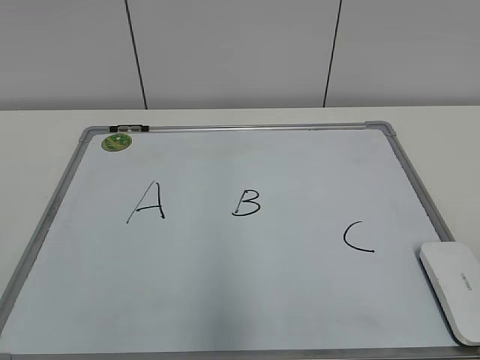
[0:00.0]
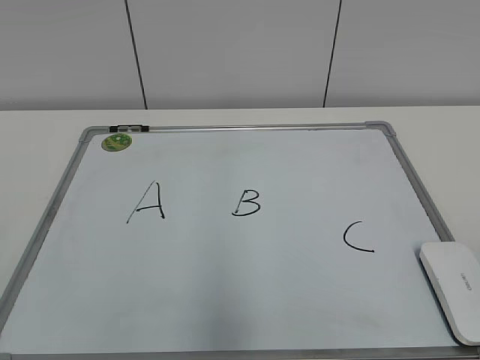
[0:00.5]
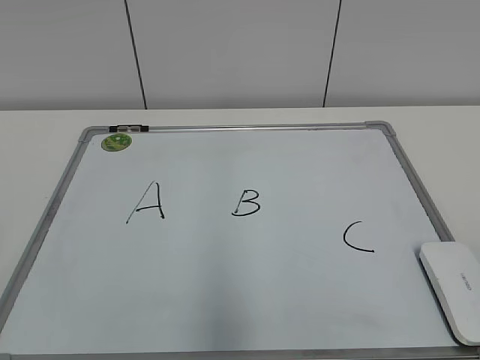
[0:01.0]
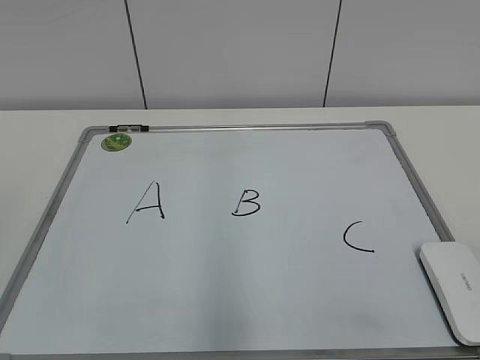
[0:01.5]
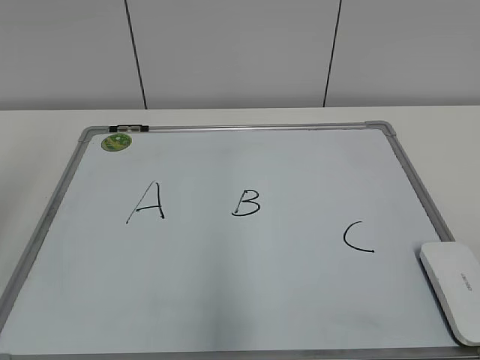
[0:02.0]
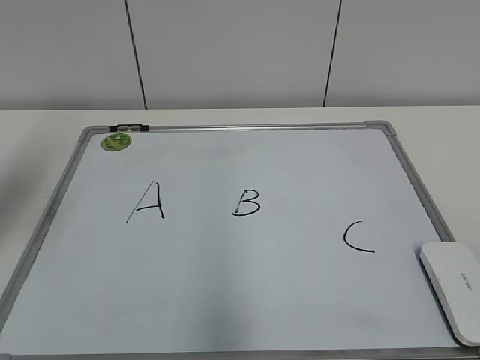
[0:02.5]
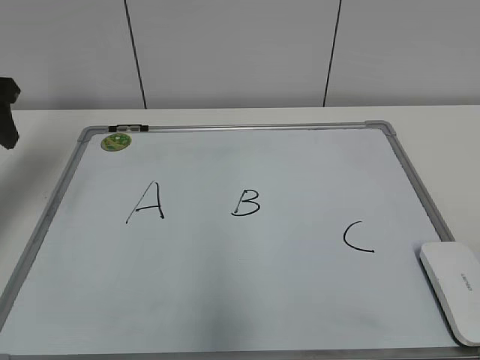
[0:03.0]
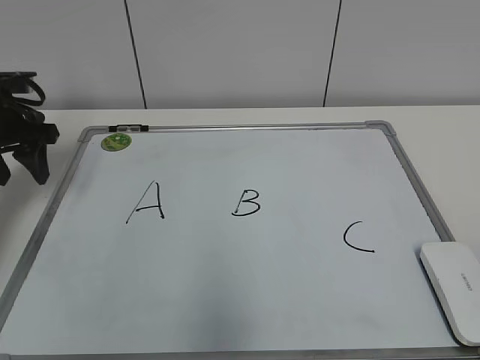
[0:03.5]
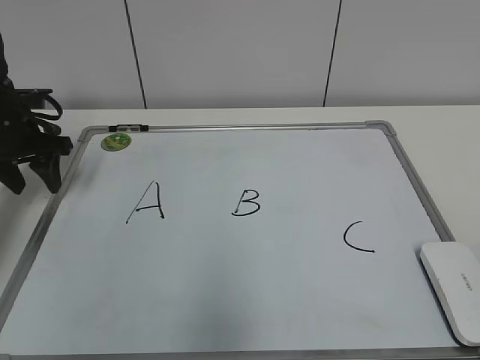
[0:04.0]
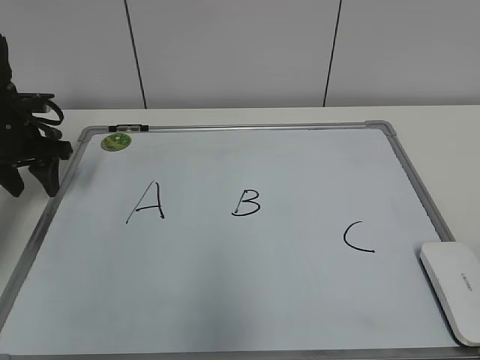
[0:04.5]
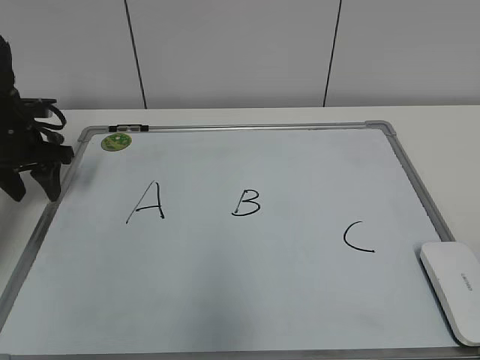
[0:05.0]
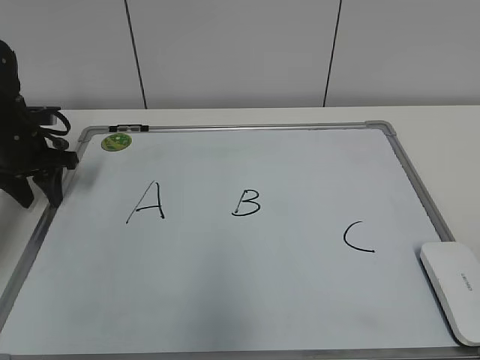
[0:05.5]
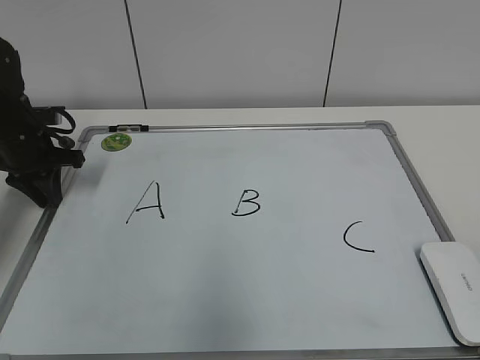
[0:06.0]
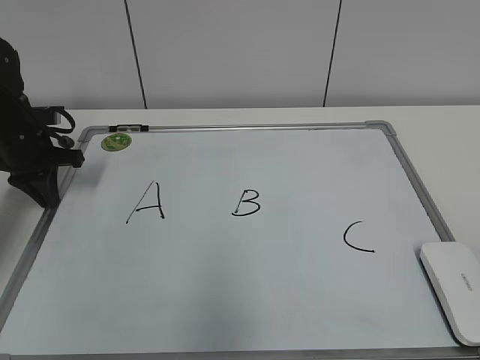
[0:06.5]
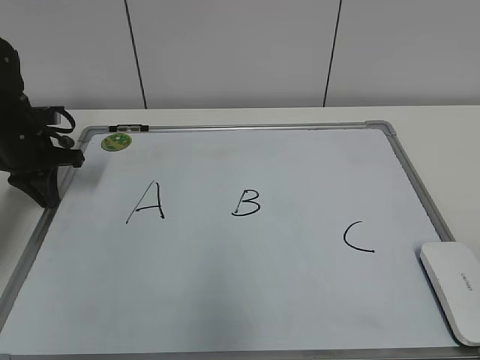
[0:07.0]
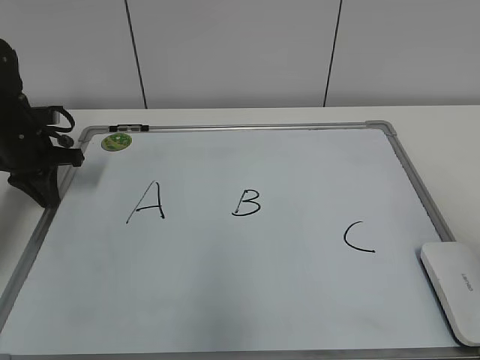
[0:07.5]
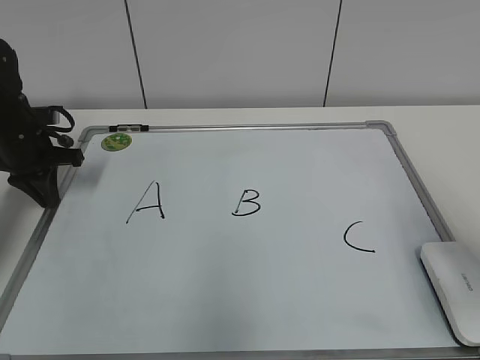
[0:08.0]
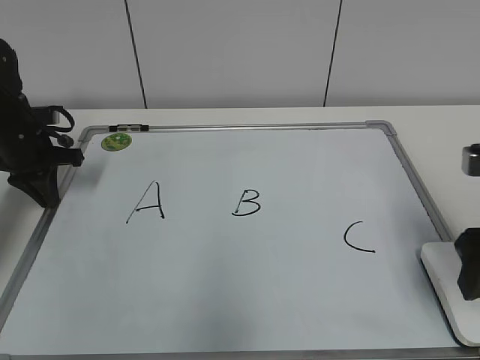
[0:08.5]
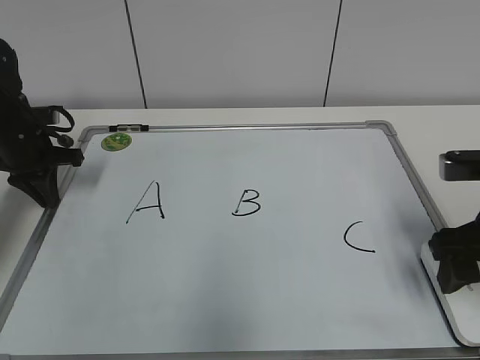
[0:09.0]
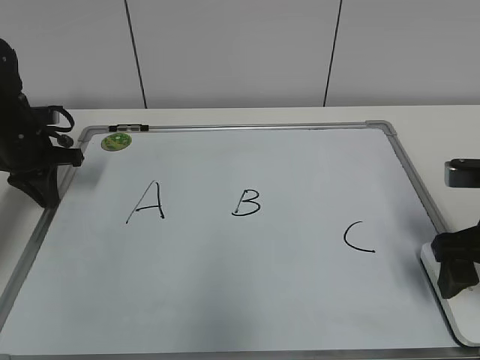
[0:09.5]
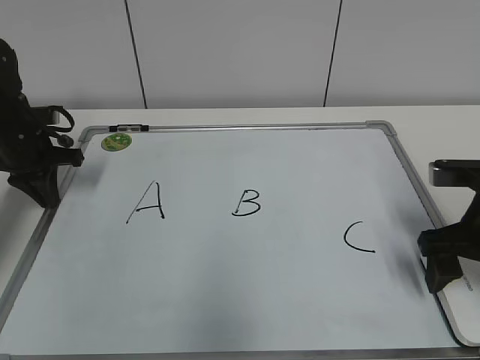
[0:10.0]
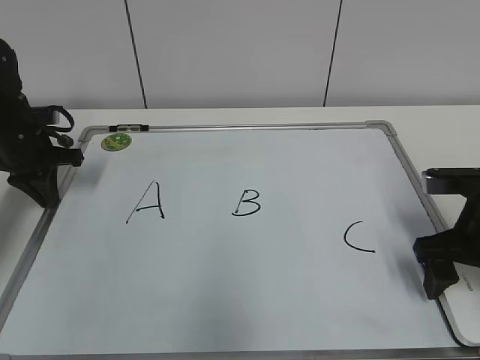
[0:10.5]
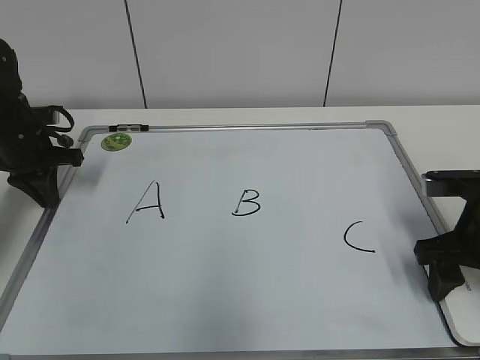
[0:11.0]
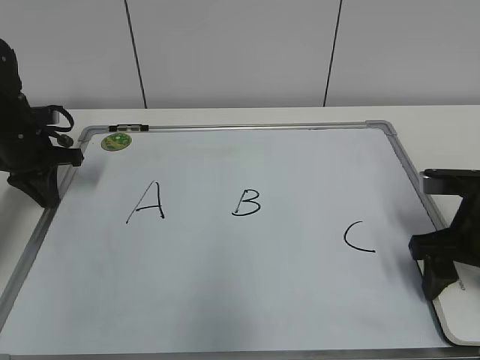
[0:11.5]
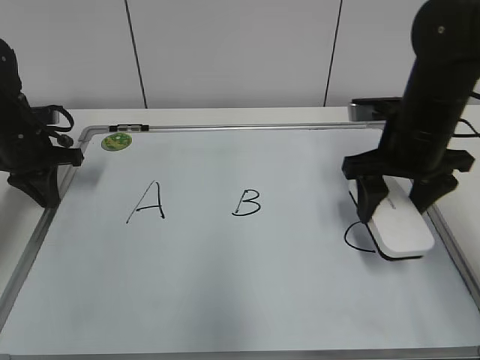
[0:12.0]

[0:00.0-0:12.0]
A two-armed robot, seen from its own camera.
Task of the whole recording: pick up the eraser on the blackboard and erase the letter "B".
Step, 0:00.0 to 0:06.0: Hold the drawing board steady with your left hand.
Step, 0:07.0 to 0:11.0: Grab the eraser with your right hand.
0:02.0 to 0:04.0: The left gripper goes roughly 35 cm forward and downward.
0:04.0 to 0:06.0: The left gripper closes.
0:06.0 to 0:08.0: The right gripper is displaced forward by approximately 20 cm.
0:08.0 to 0:10.0: The right gripper shifts some 15 cm forward and downward, and opens.
0:10.0 to 0:12.0: The right gripper heads forward and to the left, covering roughly 10 cm, and closes up.

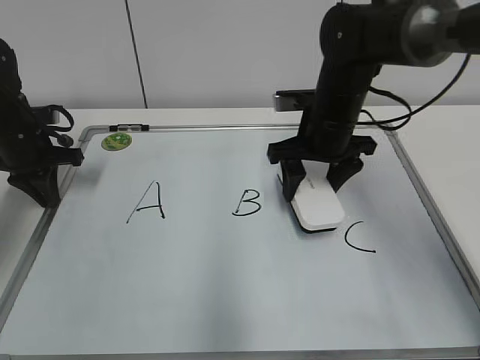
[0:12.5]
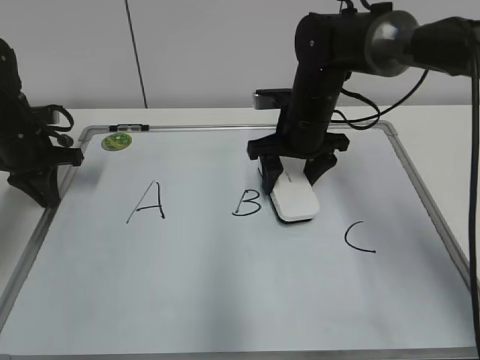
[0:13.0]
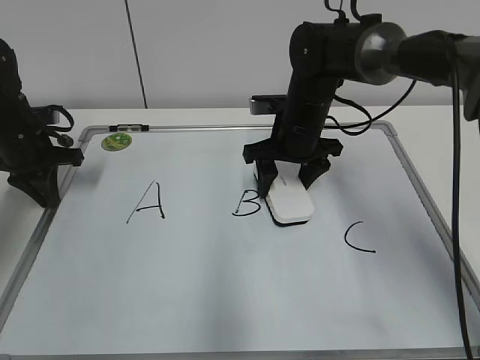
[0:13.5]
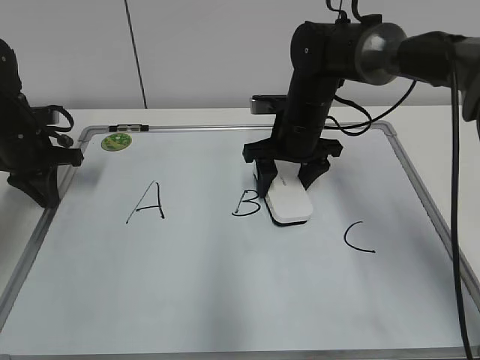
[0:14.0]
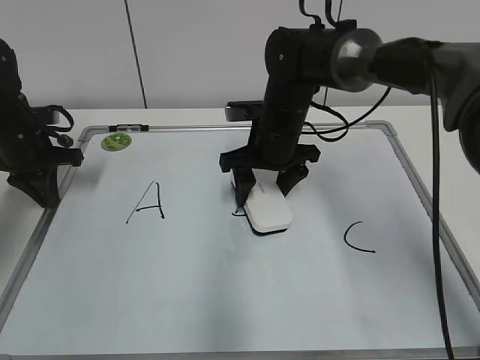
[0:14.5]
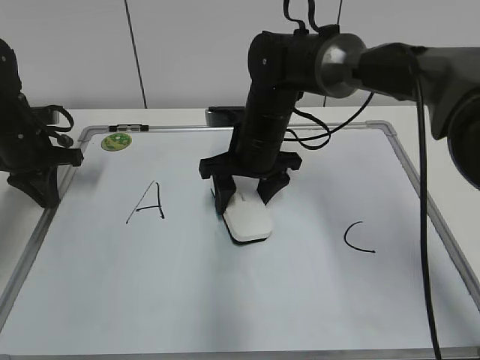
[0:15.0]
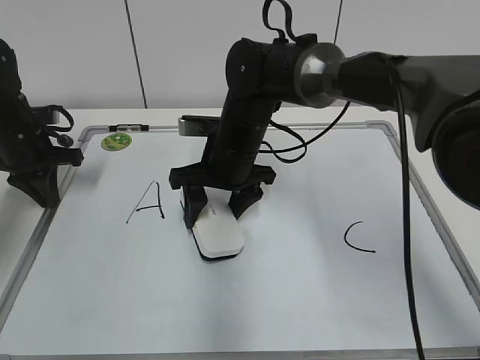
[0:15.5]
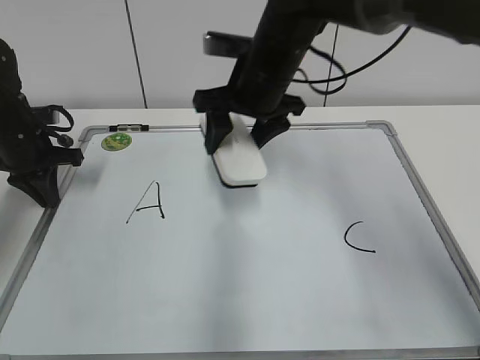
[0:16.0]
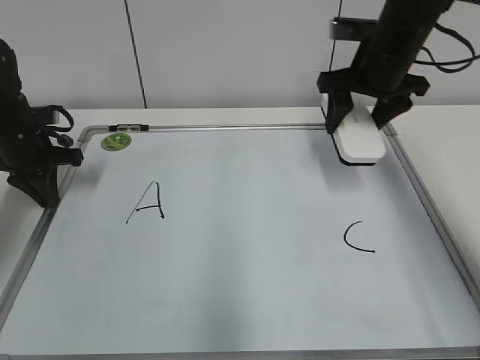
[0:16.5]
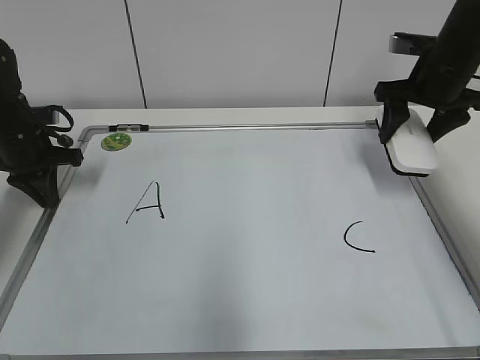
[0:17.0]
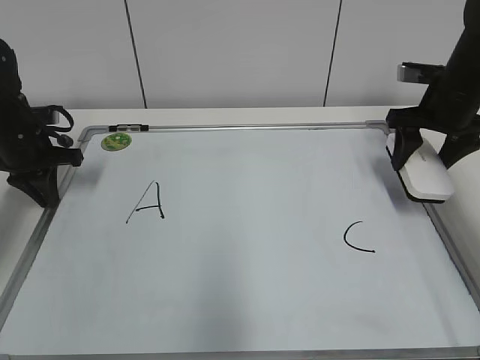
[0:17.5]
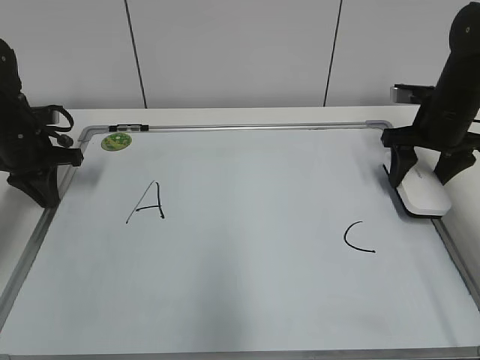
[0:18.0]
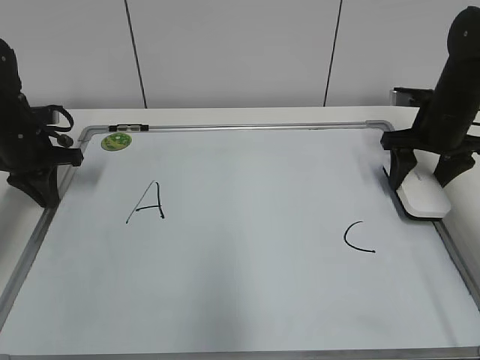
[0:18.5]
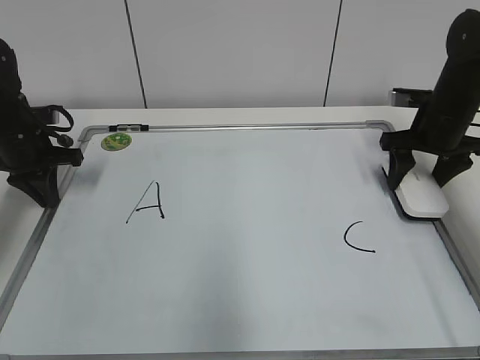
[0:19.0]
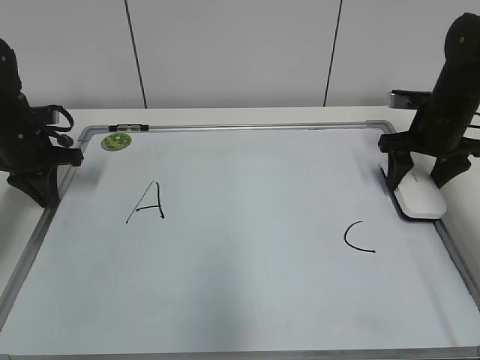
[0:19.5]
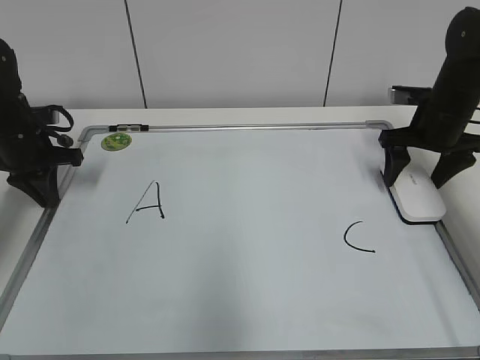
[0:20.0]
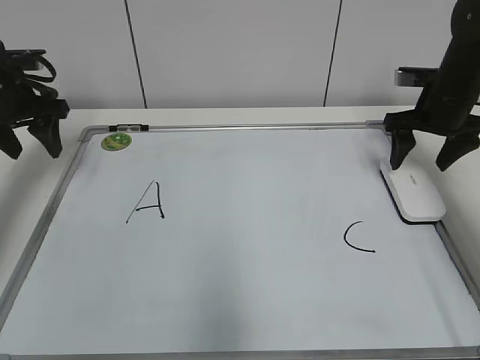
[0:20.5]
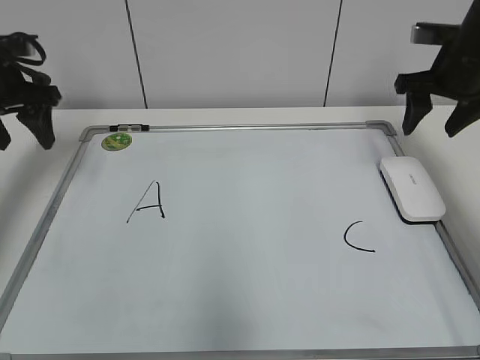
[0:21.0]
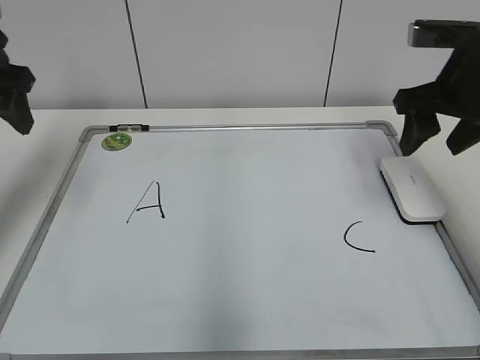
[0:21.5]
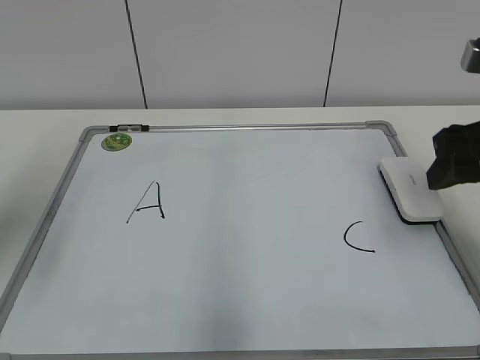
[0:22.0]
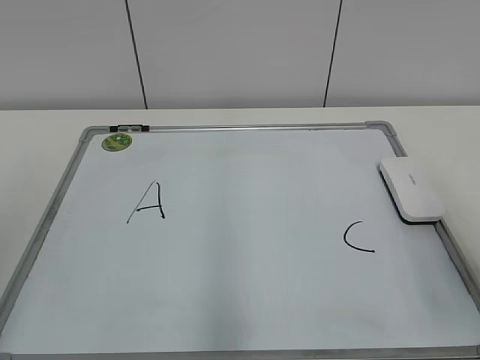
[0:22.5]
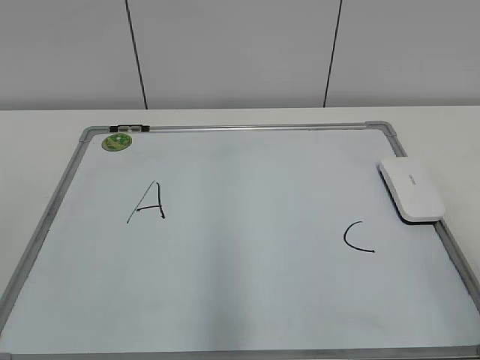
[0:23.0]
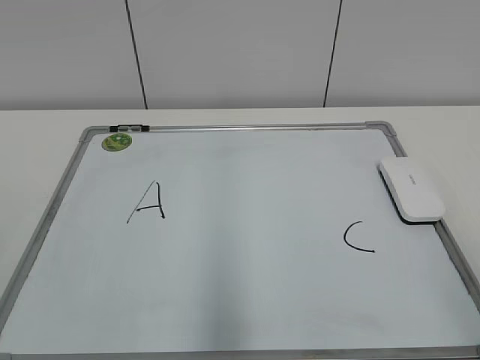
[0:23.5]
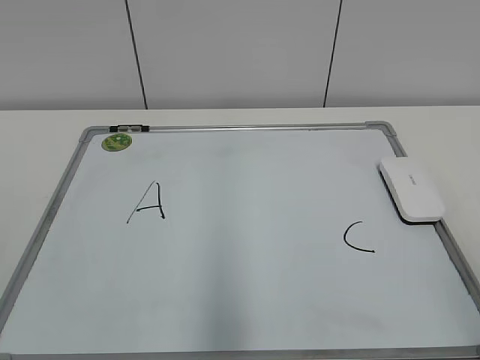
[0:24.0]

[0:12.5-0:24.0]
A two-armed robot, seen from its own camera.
Task of the whole recording: pick up the eraser on the blackboard and erase the letter "B".
Step, 0:12.5 to 0:15.5: Erase the letter B with your right hand.
Step, 0:16.0 to 0:19.5: Put down the eraser with your right hand.
0:12.5 to 0:14.5: The right gripper shifts about 5 cm to the left.
0:14.5 to 0:16.5: The right gripper shifts about 15 cm to the right and upward.
0:16.5 to 0:18.5: The right gripper travels to the right and downward by approximately 15 cm.
0:18.5 to 0:20.0: The right gripper opens up.
0:20.0 to 0:22.0: Both grippers move backward and upward, roughly 25 cm. The right gripper closes up, while the left gripper opens its fingers.
0:22.0 to 0:24.0: The two grippers go roughly 20 cm backward.

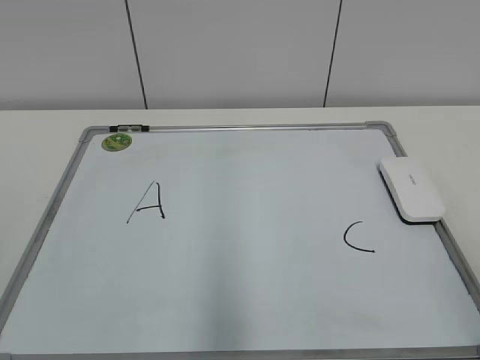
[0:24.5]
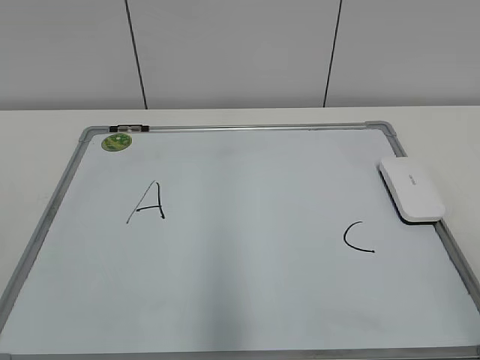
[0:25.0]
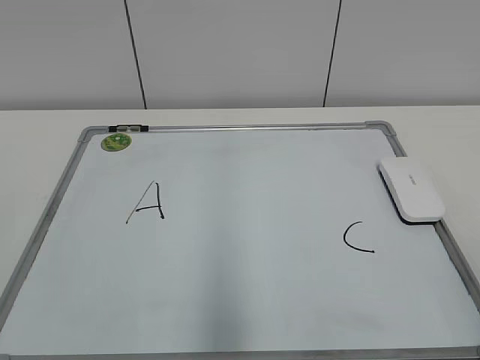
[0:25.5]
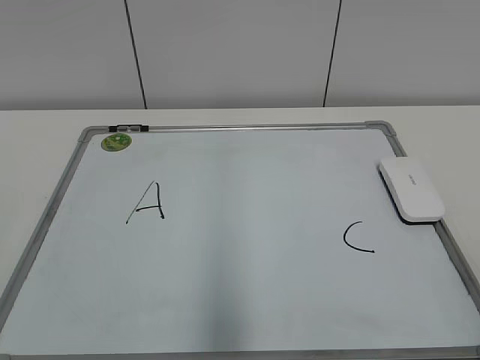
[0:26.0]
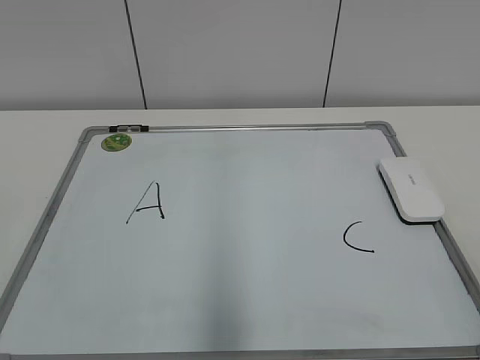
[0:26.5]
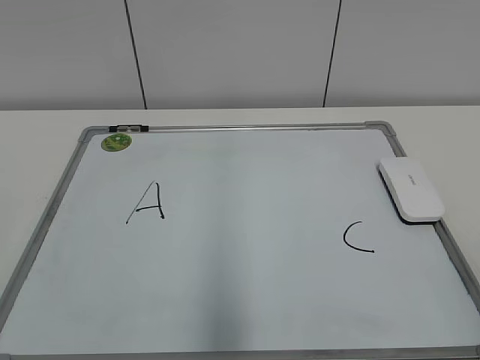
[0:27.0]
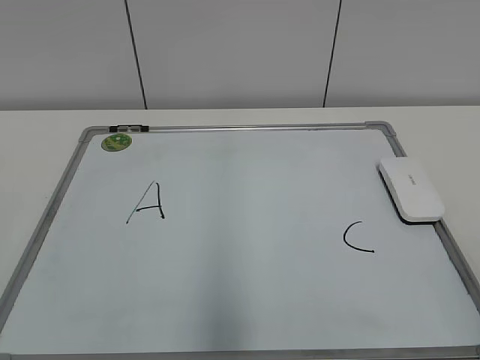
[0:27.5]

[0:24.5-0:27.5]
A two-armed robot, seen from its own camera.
Task of the whole recording: pick up the eraser on the blackboard and erase the letter "B".
0:26.0 to 0:27.5: Both grippers stay about where they are.
